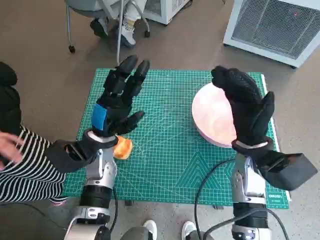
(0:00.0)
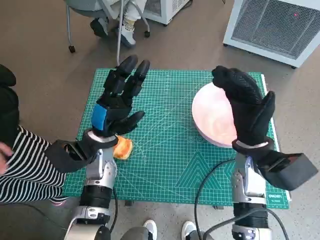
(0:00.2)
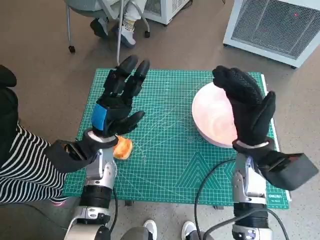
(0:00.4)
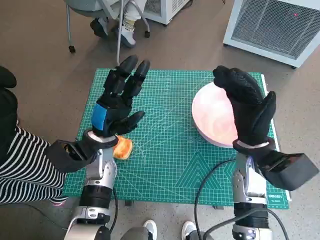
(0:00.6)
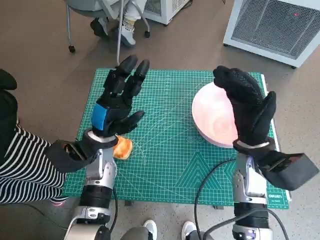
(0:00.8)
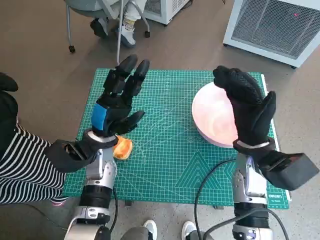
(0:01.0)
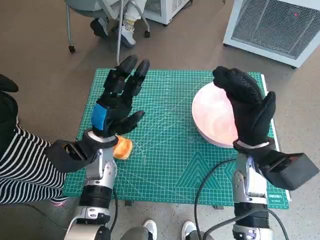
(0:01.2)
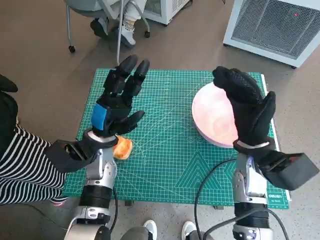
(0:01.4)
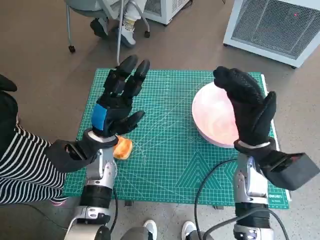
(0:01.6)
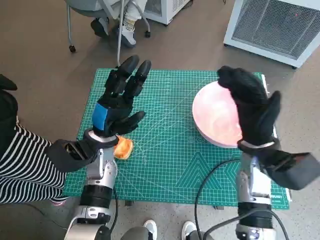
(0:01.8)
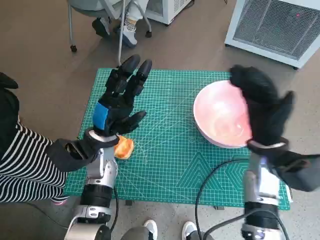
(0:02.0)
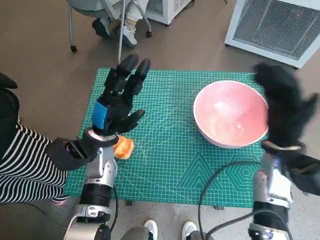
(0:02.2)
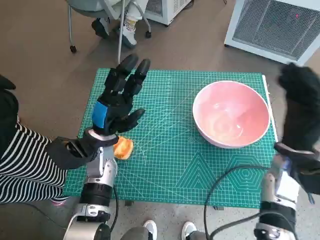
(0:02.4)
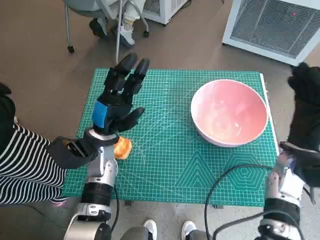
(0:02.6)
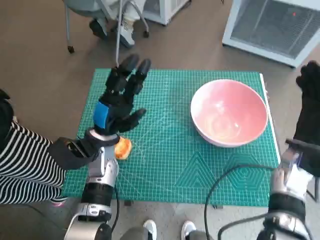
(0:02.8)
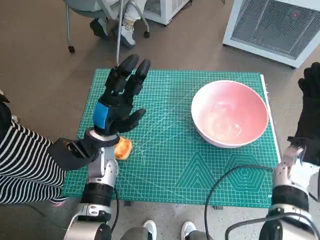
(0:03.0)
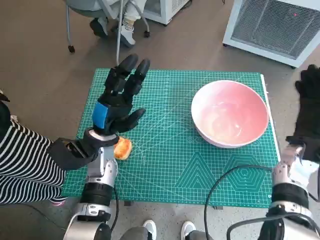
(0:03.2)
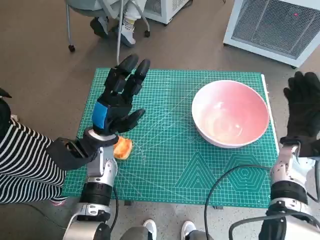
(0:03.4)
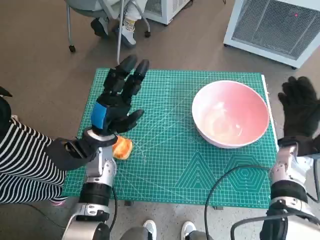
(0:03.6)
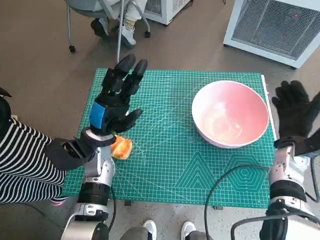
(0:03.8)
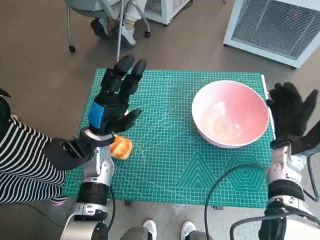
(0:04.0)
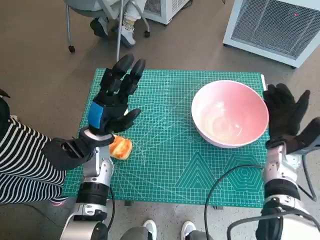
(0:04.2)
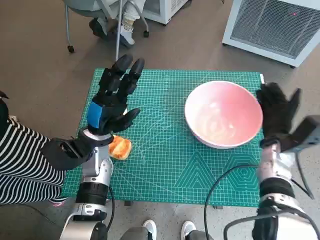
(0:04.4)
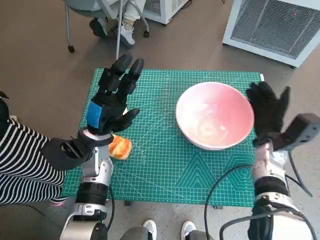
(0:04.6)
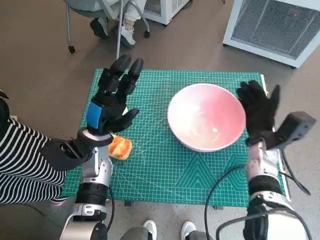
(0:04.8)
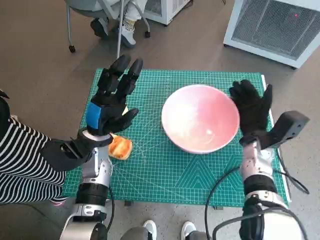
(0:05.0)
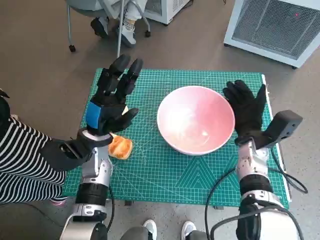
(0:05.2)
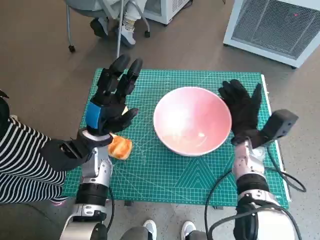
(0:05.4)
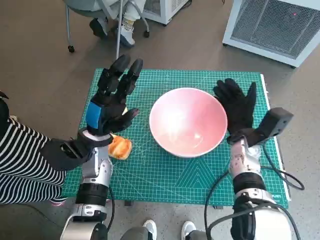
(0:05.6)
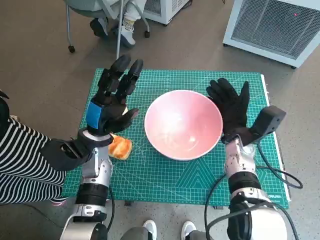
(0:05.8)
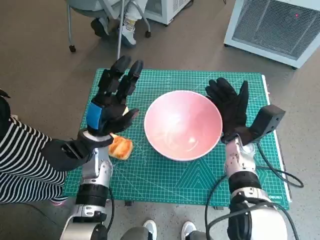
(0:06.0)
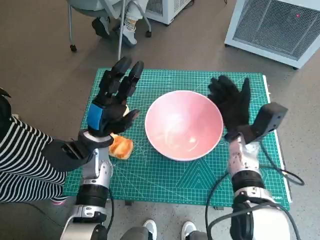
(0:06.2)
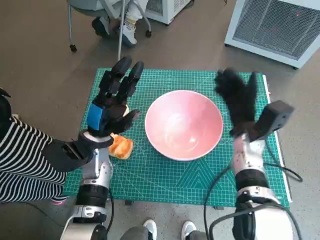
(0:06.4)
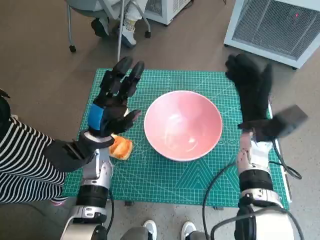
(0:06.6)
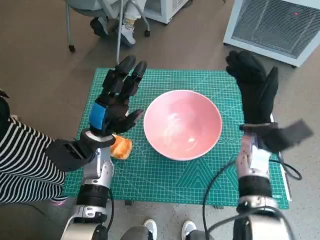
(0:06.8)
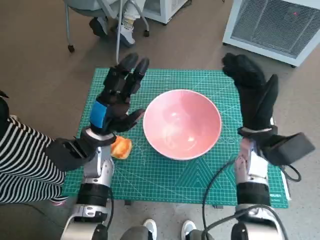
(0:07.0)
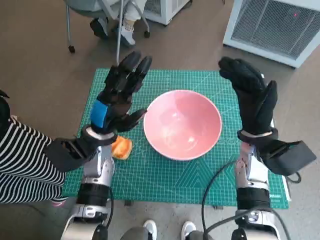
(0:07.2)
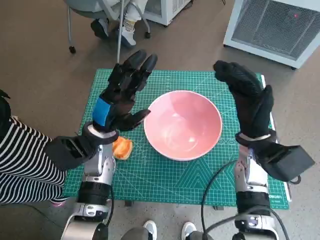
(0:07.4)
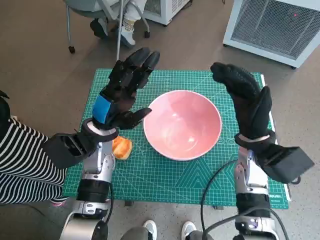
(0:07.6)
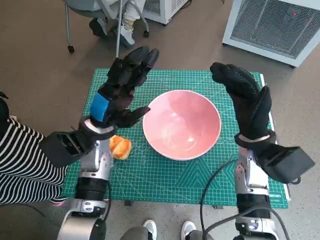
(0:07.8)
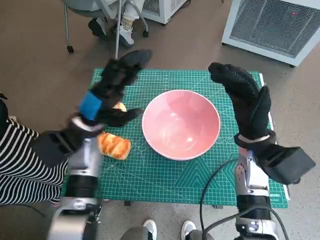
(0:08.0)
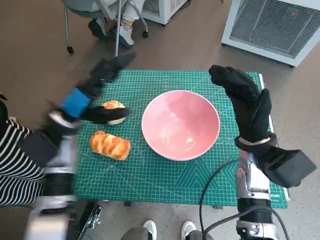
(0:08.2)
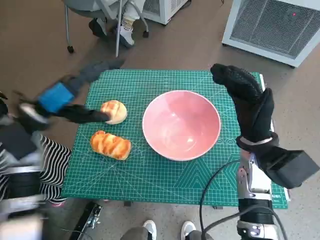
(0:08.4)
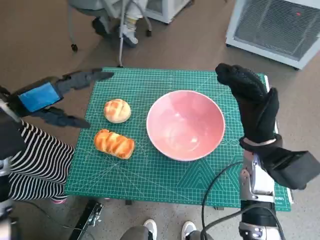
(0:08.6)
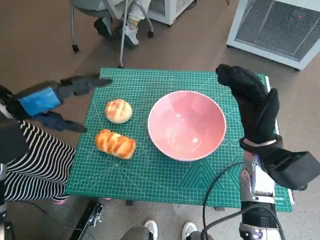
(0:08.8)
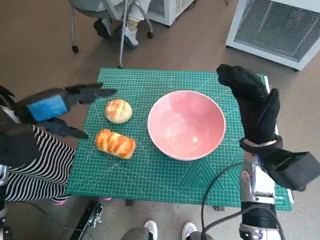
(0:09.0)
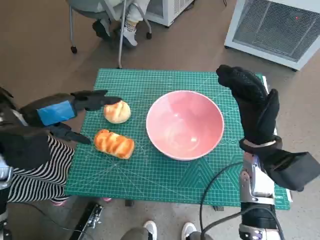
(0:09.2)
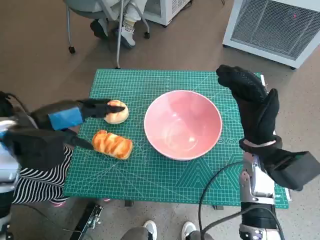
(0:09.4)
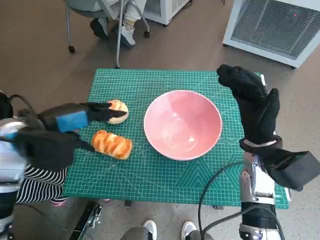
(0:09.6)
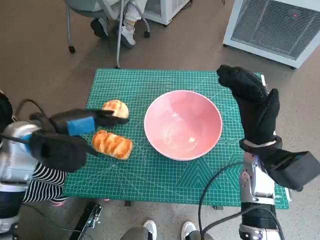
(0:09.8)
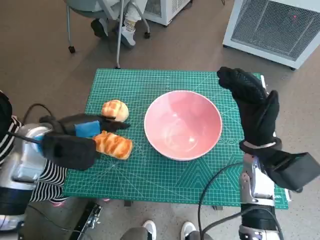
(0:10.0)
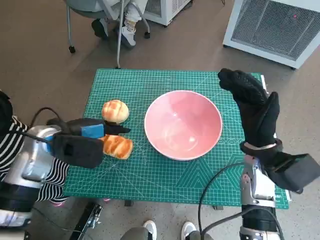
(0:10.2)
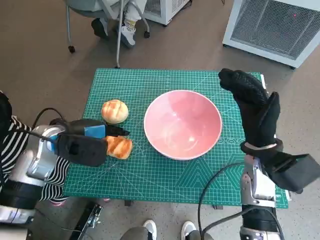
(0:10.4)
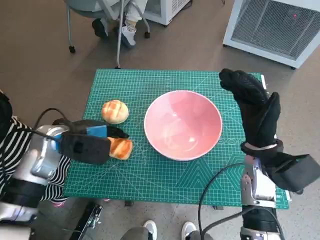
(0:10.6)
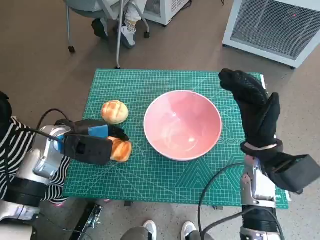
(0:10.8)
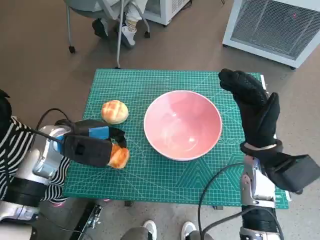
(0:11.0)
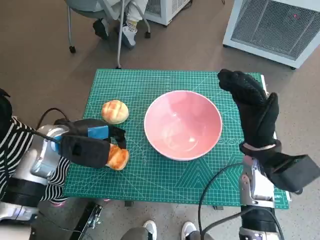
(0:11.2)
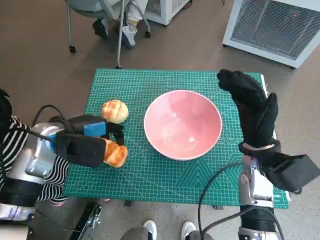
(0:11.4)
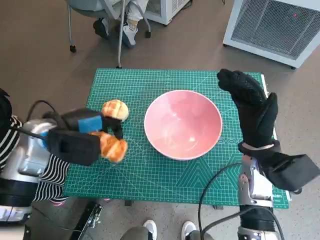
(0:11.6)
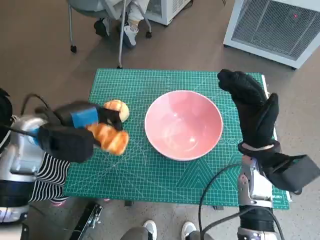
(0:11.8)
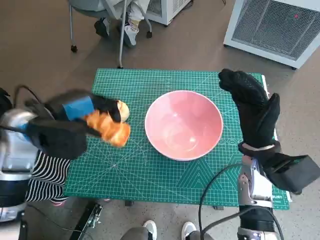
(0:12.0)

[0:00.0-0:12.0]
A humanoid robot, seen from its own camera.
Task of the whole recording: Push the bowl into the center of the table and put the bread into the bowl.
Step, 0:00.0 to 0:06.2: Move the pink bowl to the center of table with right hand.
Step, 0:06.4 to 0:11.0: Grasp the long bread with left hand.
0:01.6 to 0:03.0: The right hand goes about 10 cm to the right.
0:03.0 to 0:04.4: The right hand moves some 5 cm.
0:04.4 to 0:06.0: The right hand moves to the left, roughly 10 cm.
0:06.0 to 0:07.6: The right hand goes roughly 5 cm upward.
0:07.6 to 0:09.0: The left hand is displaced to the left and upward by roughly 15 cm.
0:09.0 to 0:10.4: The left hand travels downward by about 10 cm.
0:10.4 to 0:12.0: The left hand moves upward, roughly 5 cm.

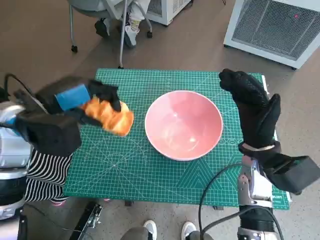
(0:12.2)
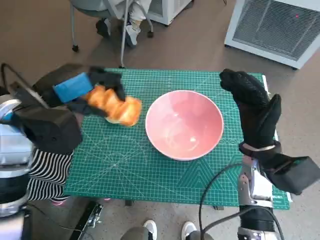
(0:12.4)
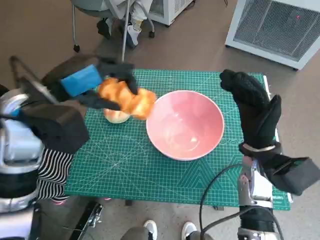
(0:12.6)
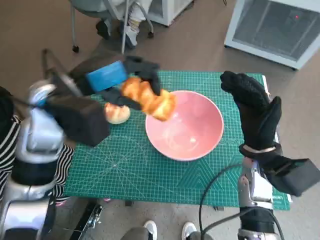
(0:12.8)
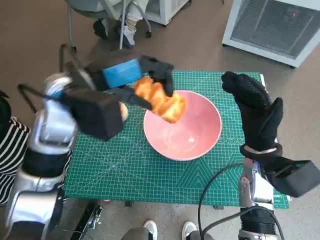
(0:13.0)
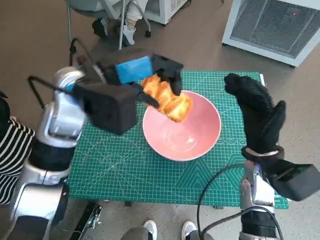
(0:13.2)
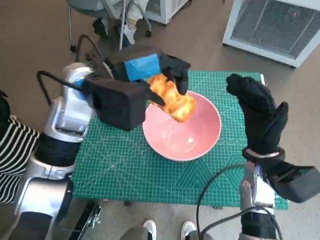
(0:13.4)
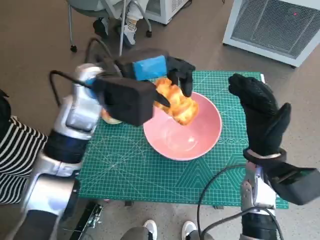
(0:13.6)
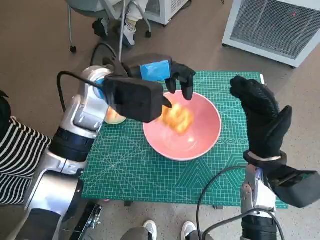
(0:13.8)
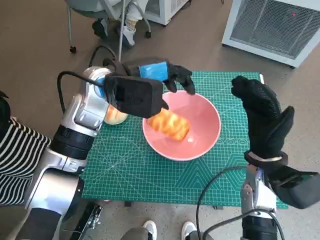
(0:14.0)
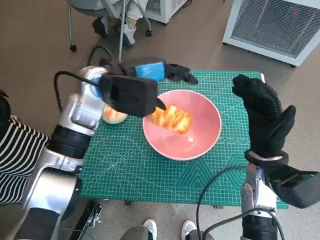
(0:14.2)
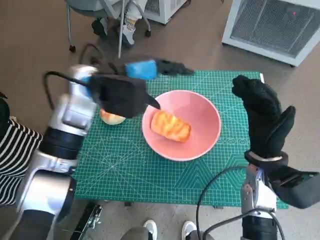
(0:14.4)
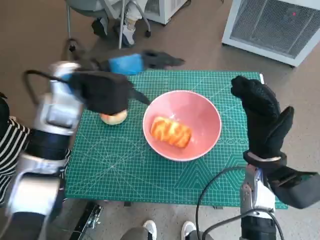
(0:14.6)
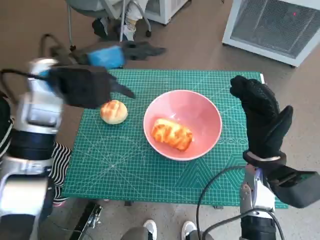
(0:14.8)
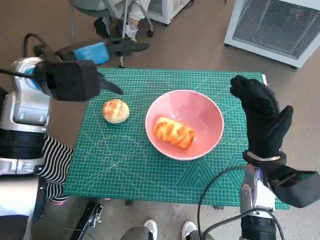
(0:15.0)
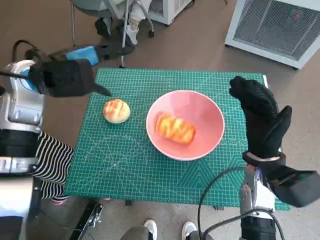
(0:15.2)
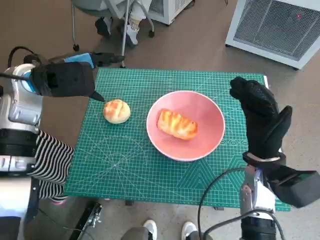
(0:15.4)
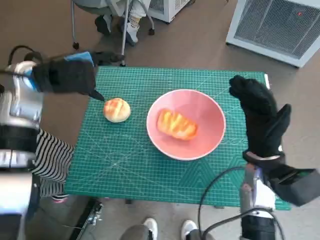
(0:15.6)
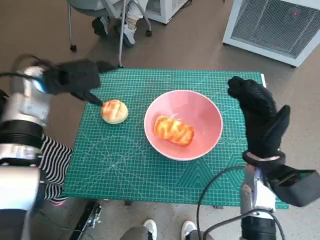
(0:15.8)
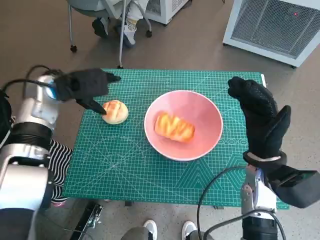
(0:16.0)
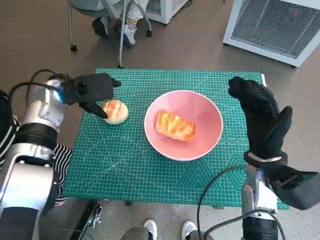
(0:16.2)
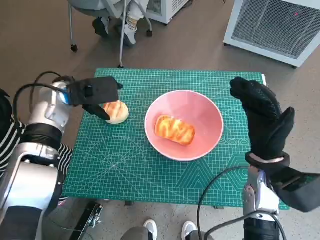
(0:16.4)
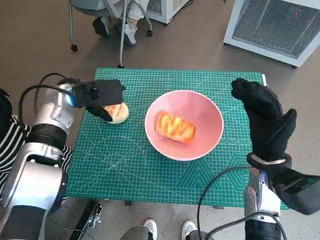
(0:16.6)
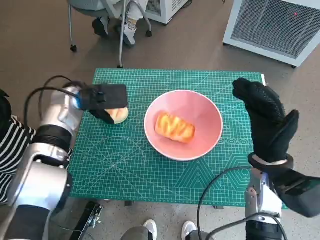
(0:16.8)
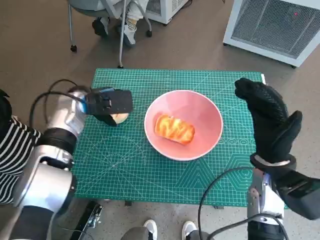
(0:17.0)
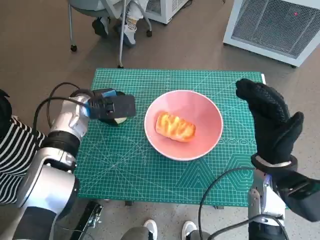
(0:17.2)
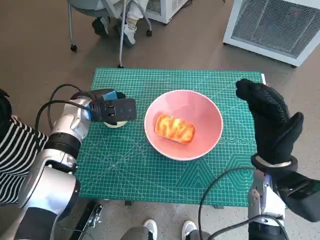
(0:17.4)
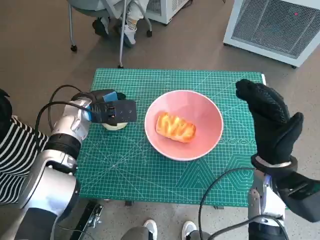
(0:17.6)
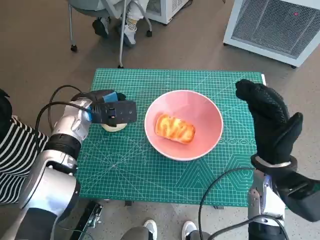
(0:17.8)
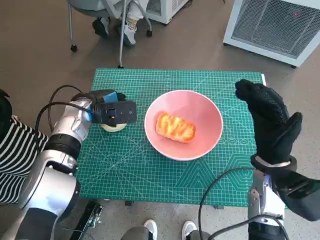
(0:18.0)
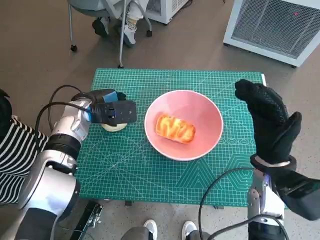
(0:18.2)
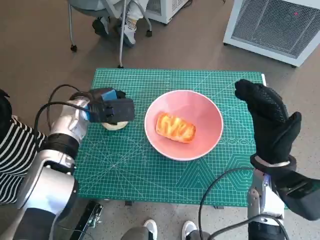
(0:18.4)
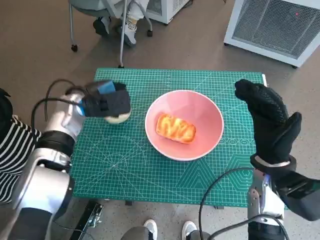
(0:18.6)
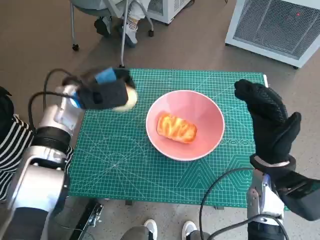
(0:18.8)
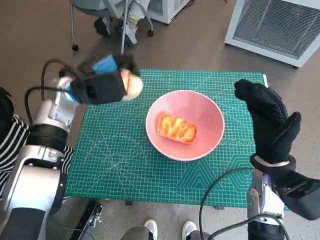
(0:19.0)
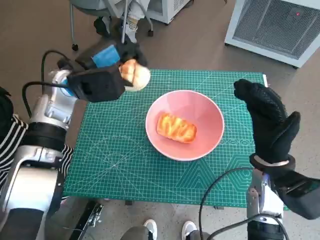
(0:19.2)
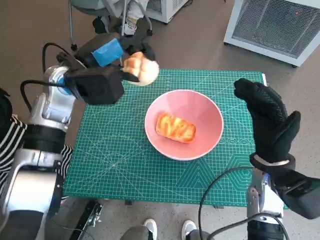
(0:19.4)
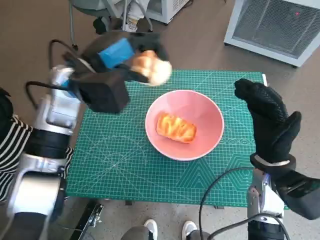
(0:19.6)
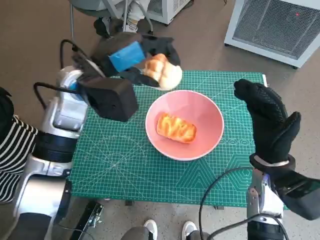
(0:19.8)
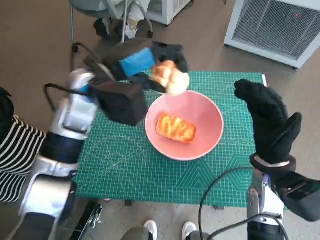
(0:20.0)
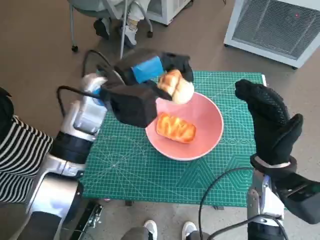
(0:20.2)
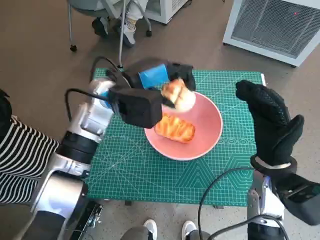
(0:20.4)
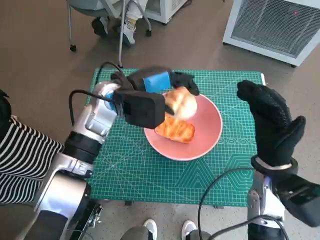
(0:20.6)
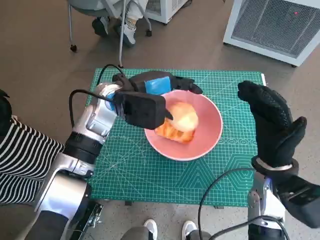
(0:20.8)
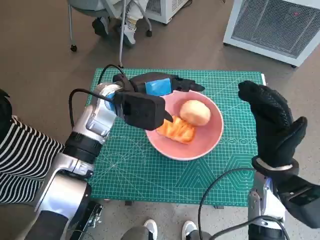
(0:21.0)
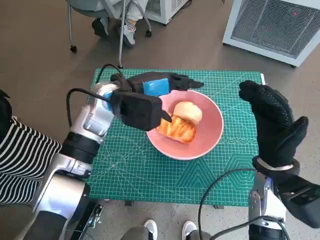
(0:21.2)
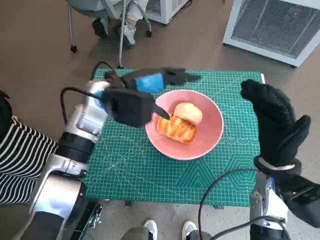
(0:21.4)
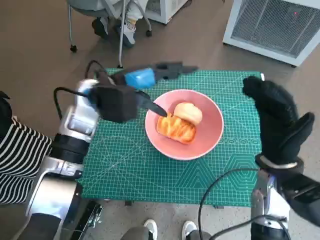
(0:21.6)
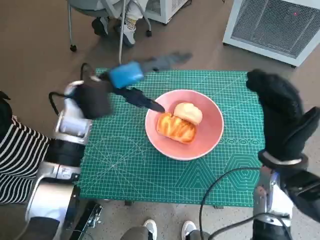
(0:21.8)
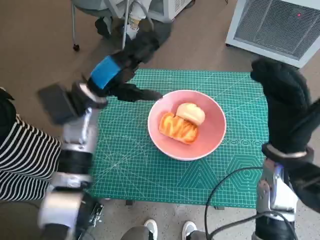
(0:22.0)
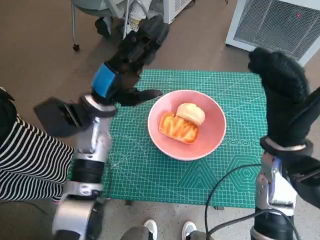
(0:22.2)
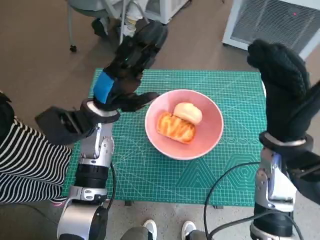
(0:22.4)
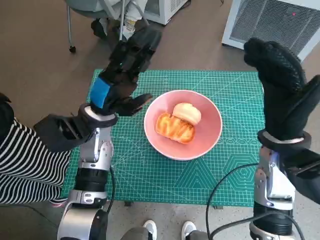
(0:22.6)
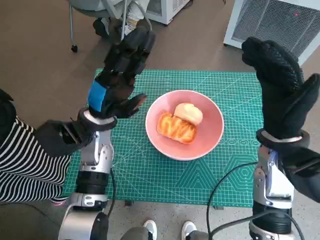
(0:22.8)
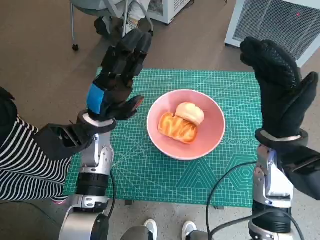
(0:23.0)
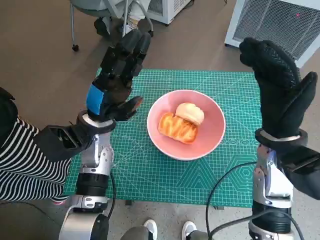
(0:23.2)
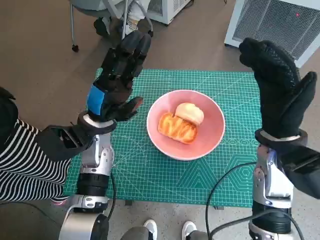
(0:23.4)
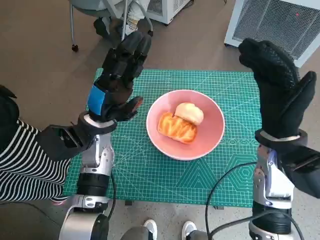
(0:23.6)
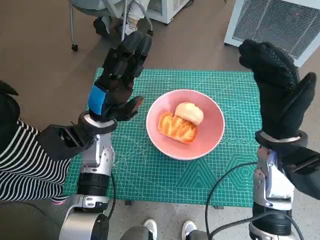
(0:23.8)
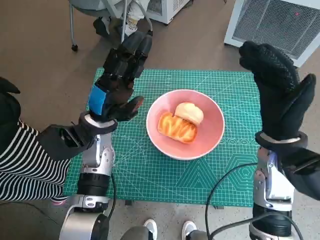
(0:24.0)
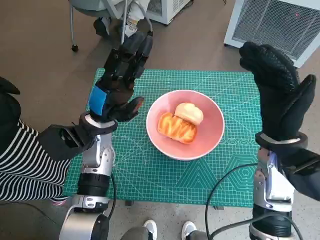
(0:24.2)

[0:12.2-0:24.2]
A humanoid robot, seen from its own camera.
Task of the whole recording: Push the bowl into the center of the table and put the bread into the bowl.
Step, 0:12.2 to 0:14.4: Place the long bread in pink bowl with left hand.
Step, 0:14.6 to 0:17.6: Grasp the round bread with left hand.
Step, 0:17.8 to 0:21.4: Place the round bread in pink bowl with left hand.
0:12.2 to 0:13.8: The left hand goes about 15 cm to the right and forward.
0:13.8 to 0:15.2: The left hand shifts about 10 cm to the left.
0:15.2 to 0:16.6: The left hand heads downward, covering roughly 10 cm.
0:16.6 to 0:18.2: There are only small adjustments of the hands.
0:18.2 to 0:19.8: The left hand is displaced upward by roughly 10 cm.
0:19.8 to 0:21.2: The left hand goes some 5 cm downward.
0:21.2 to 0:22.6: The left hand changes place by some 5 cm. Meanwhile the right hand moves upward, approximately 5 cm.
